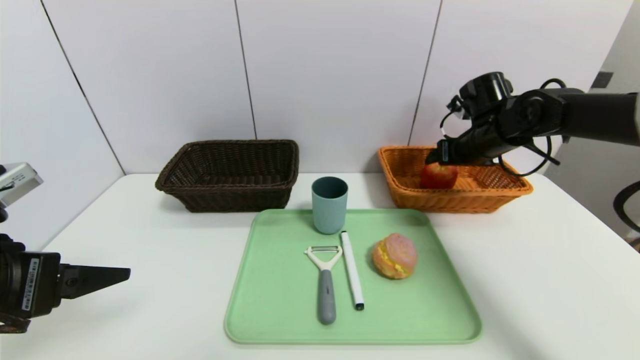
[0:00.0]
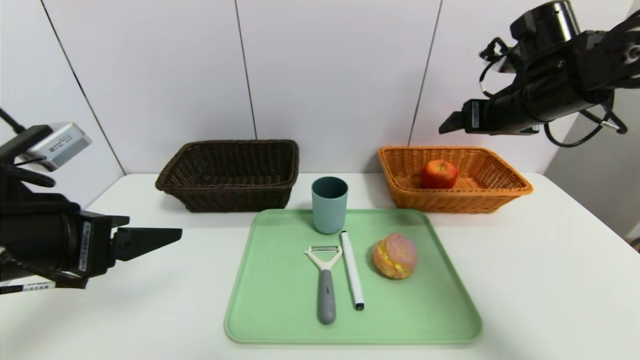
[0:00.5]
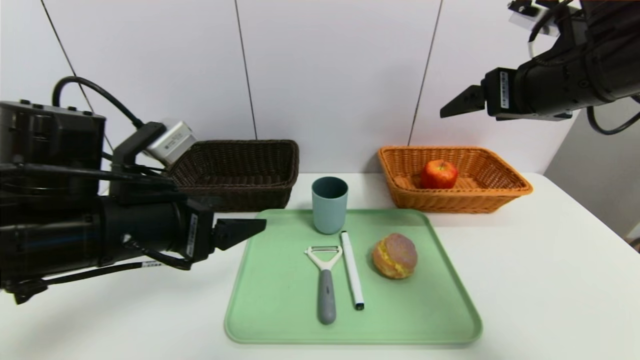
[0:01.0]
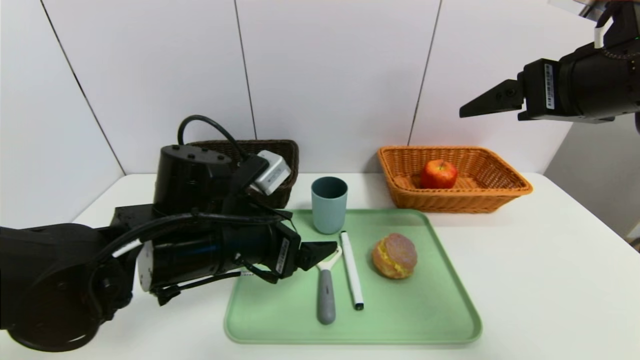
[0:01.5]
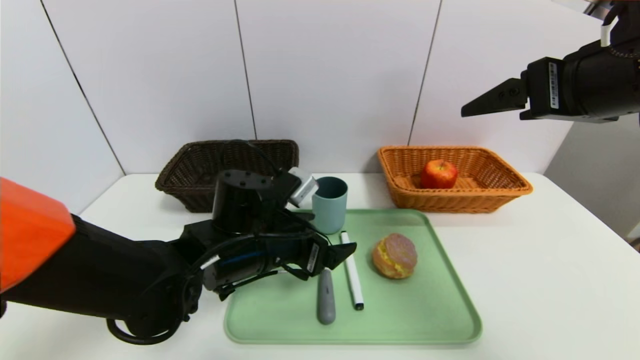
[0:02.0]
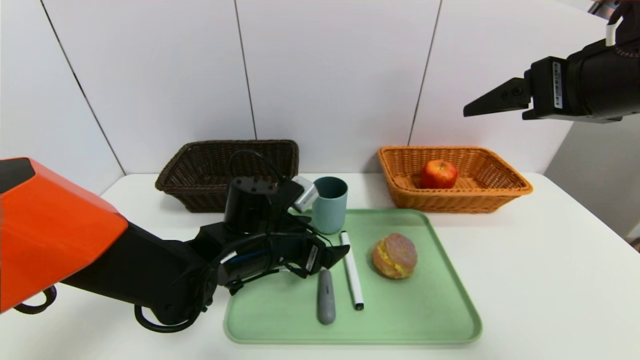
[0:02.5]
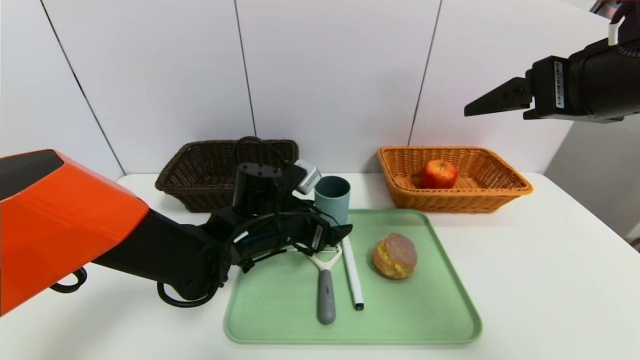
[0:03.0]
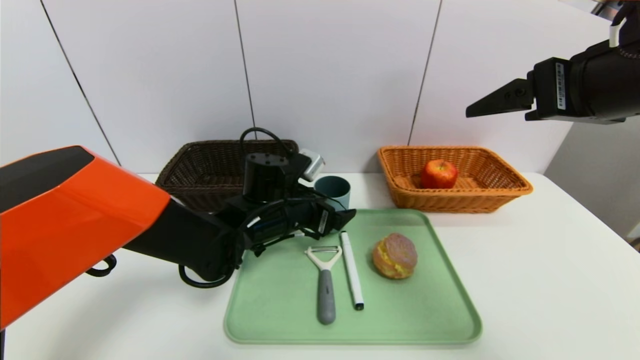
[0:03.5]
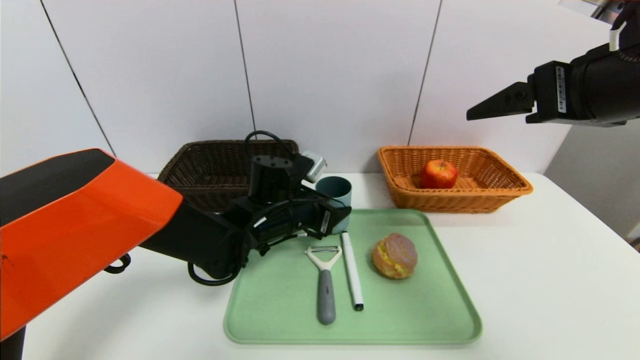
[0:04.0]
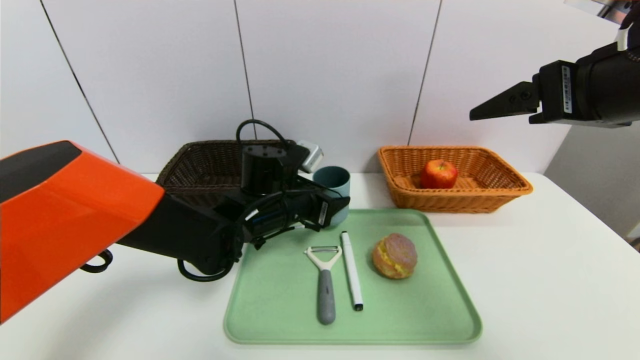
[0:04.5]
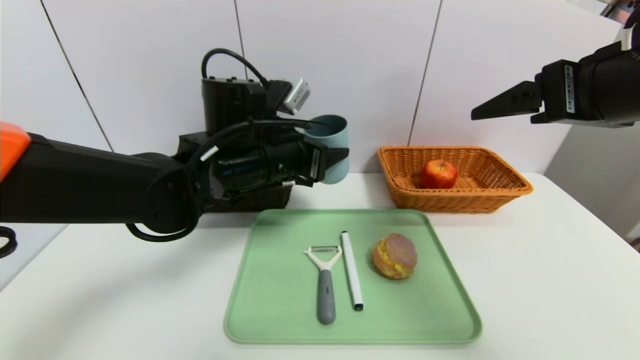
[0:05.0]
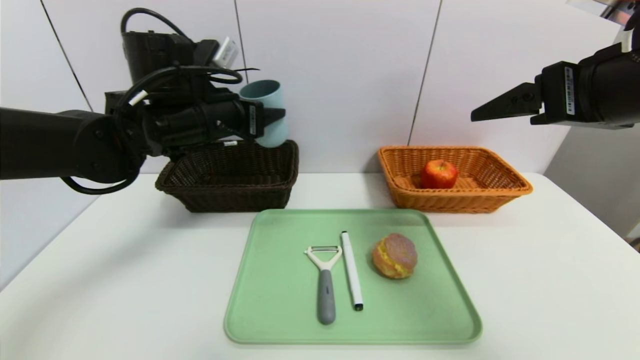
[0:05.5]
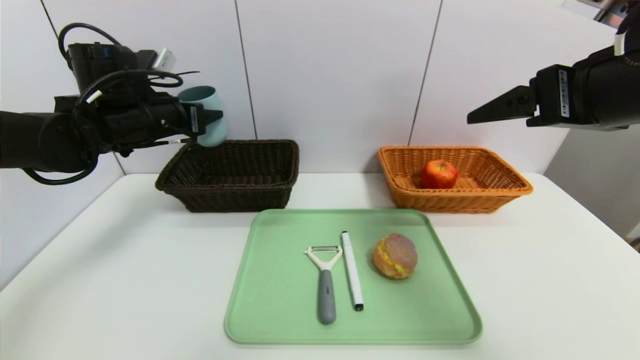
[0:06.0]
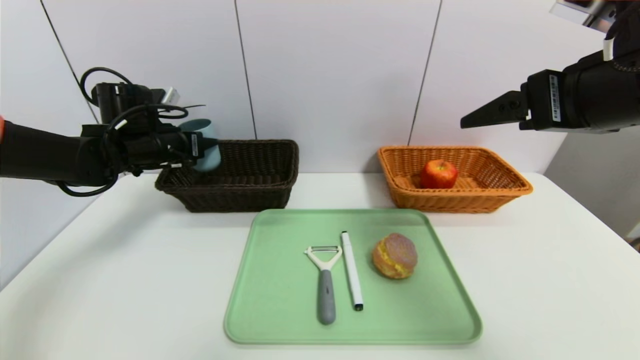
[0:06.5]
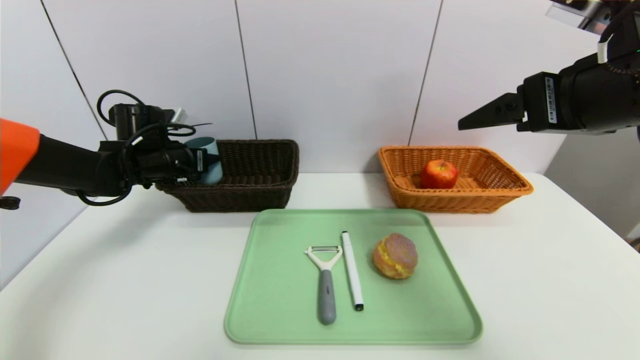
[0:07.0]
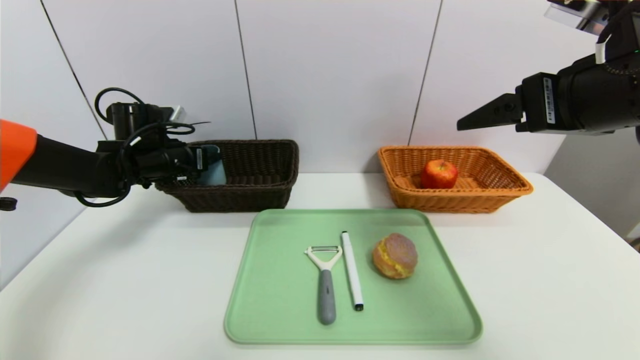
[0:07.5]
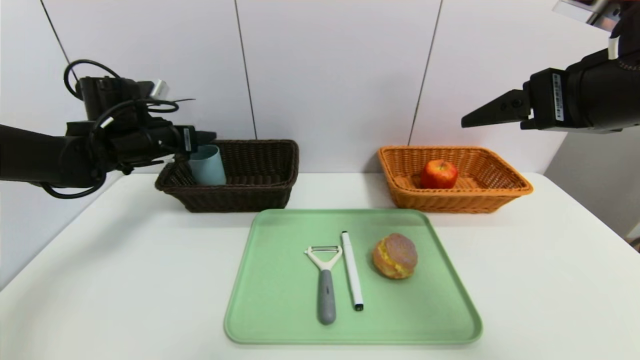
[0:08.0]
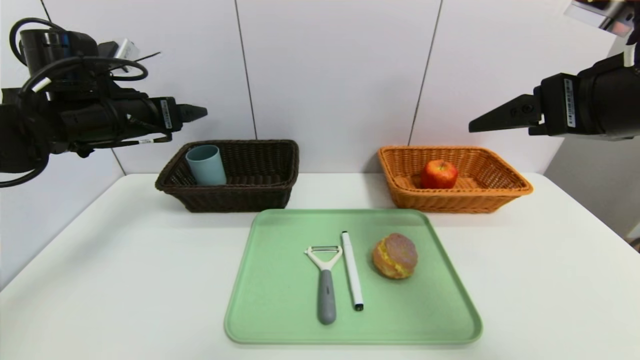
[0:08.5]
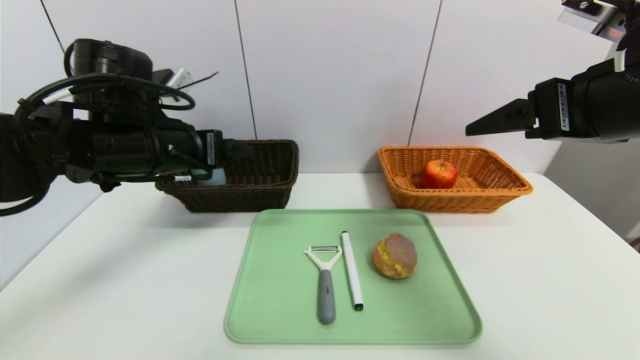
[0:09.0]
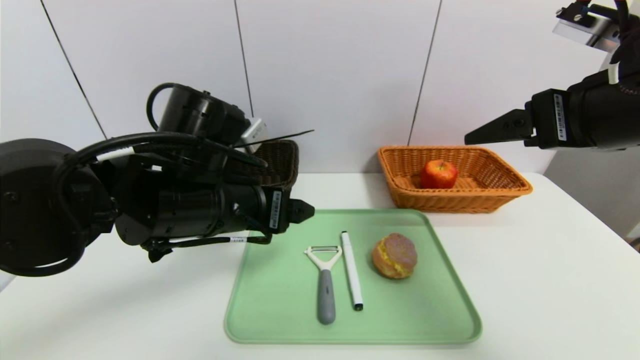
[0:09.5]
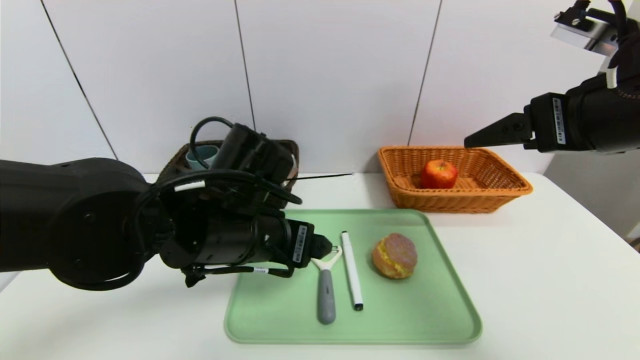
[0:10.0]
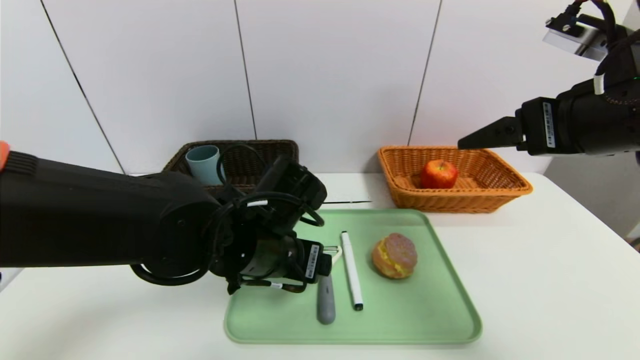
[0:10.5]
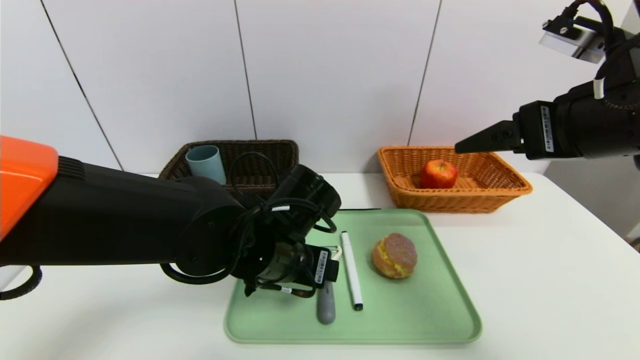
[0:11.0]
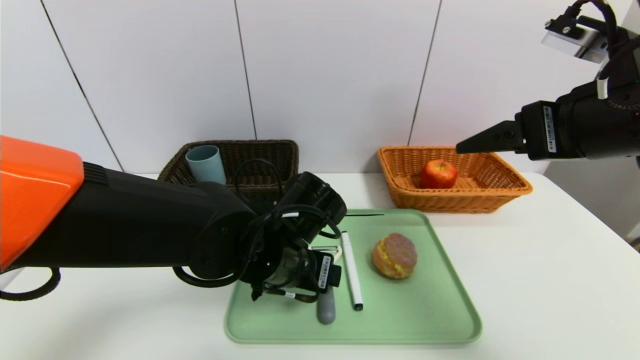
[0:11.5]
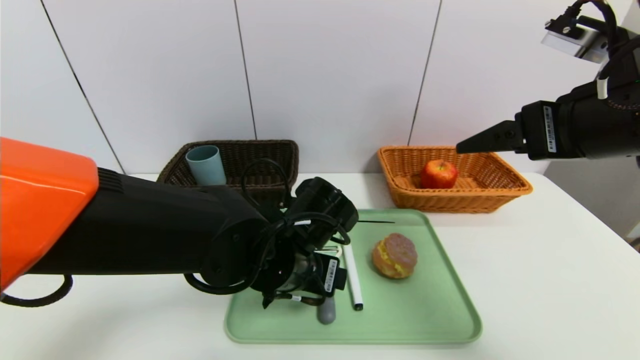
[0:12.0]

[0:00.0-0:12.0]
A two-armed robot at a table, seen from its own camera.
Task of the whole recording: place the food in the right basket with the right gripper, and place the non food items in the left basket with the left gripper.
Step, 0:00.5 to 0:07.5: Grasp the blue cup and put it in the left basket.
0:00.0 to 0:02.0: The left gripper goes about 25 cm to the right, forward and downward. Meanwhile the right gripper shifts roughly 25 cm backward and upward.
0:02.0 to 0:04.0: The left gripper is displaced forward by approximately 10 cm, and closes.
0:04.0 to 0:06.0: The left gripper goes some 25 cm to the left and upward.
0:06.0 to 0:08.0: The left gripper goes downward and returns, about 10 cm each way.
0:08.0 to 0:10.0: The left gripper moves to the right and backward, some 25 cm.
0:10.0 to 0:12.0: The left gripper moves downward, about 5 cm.

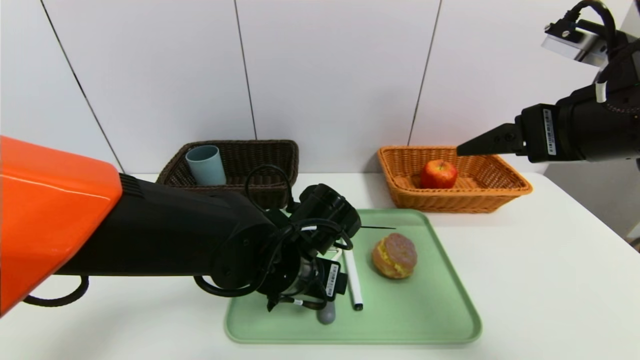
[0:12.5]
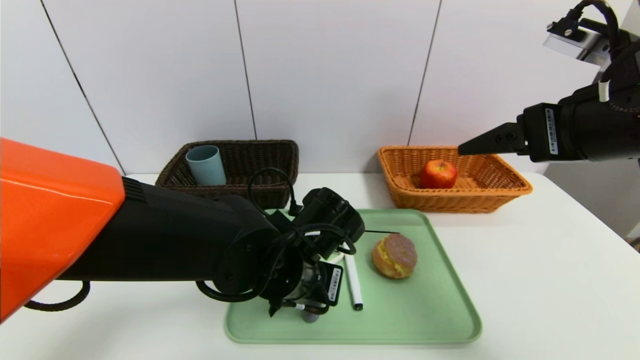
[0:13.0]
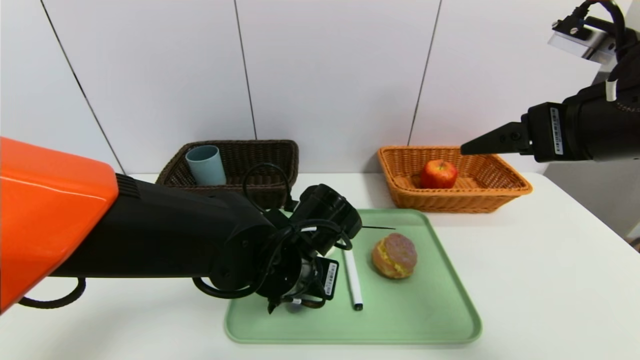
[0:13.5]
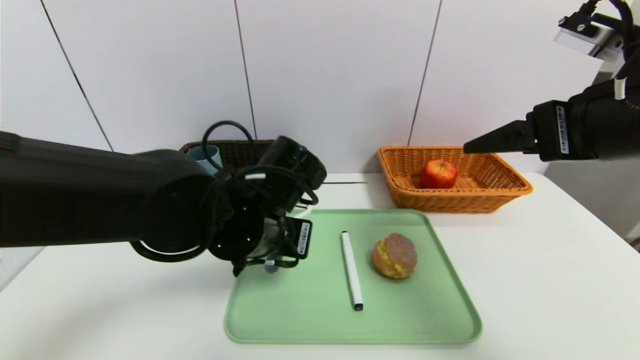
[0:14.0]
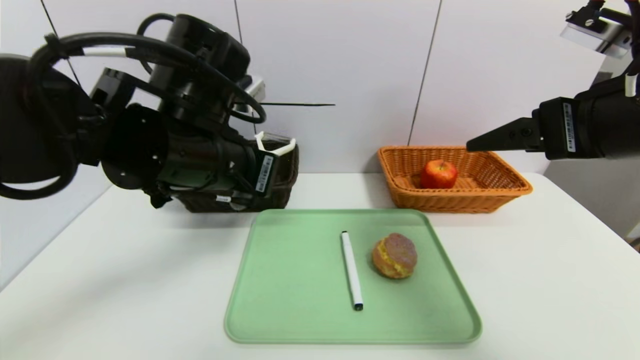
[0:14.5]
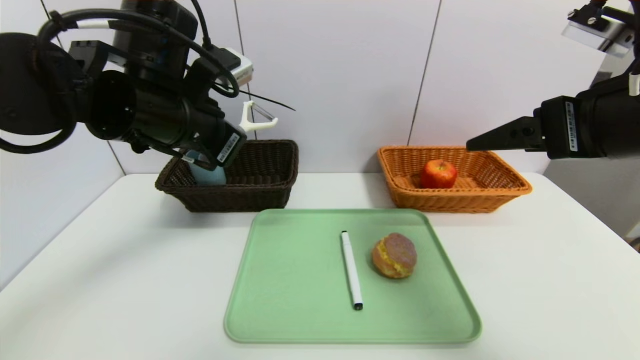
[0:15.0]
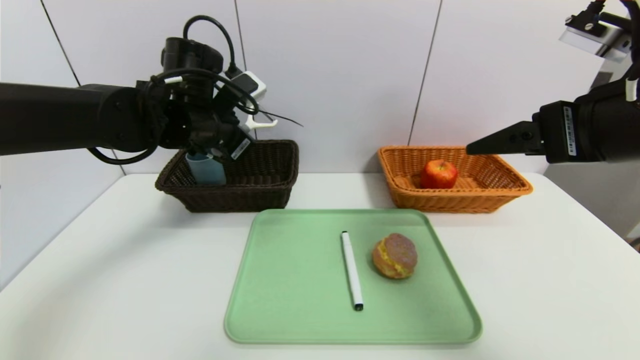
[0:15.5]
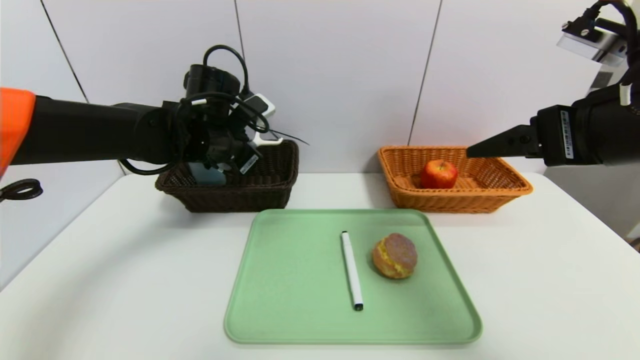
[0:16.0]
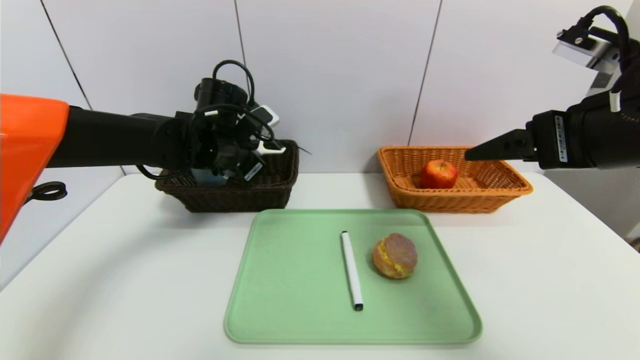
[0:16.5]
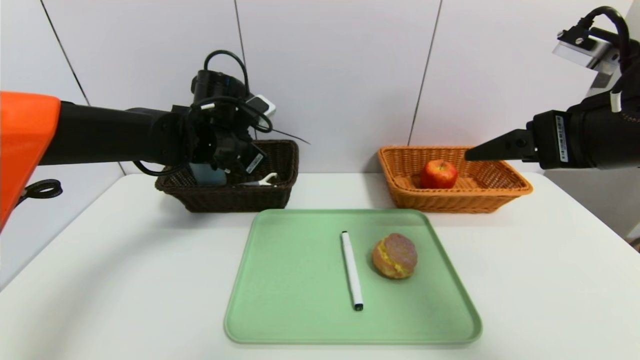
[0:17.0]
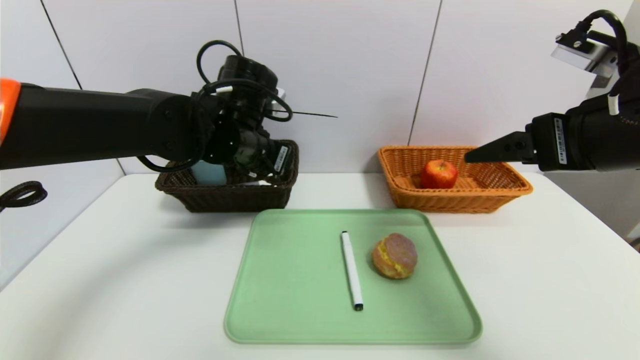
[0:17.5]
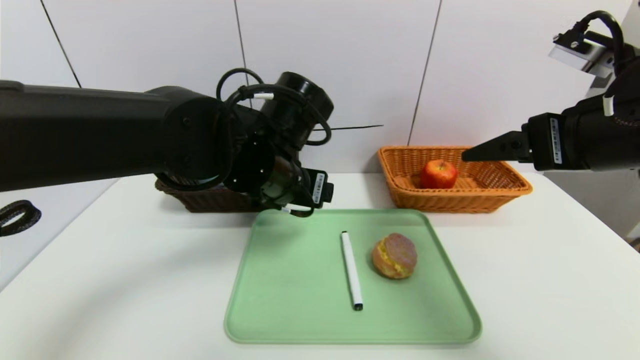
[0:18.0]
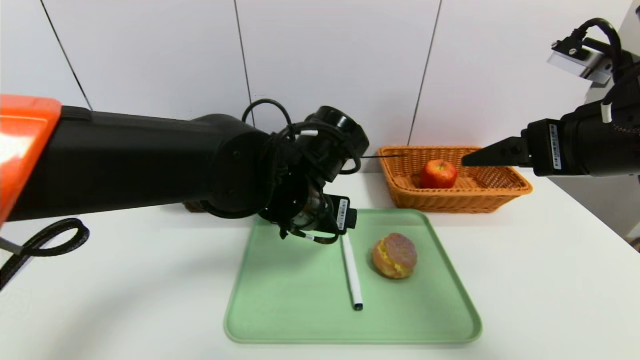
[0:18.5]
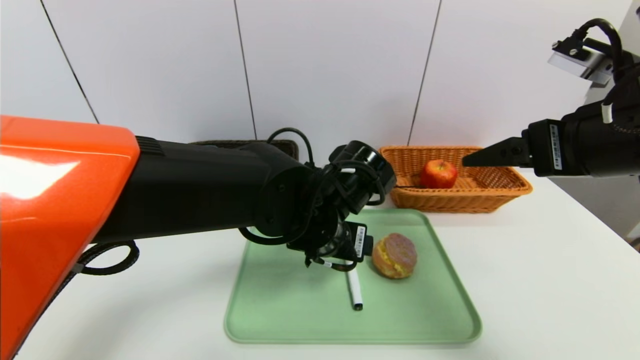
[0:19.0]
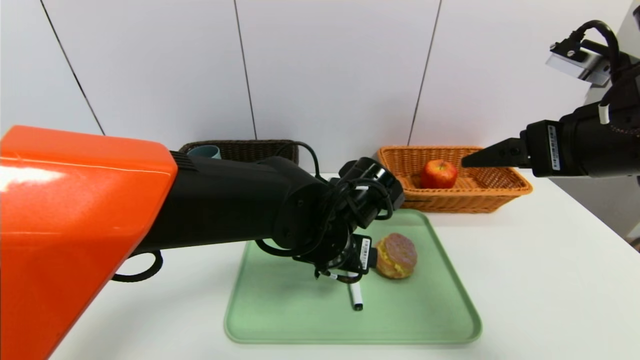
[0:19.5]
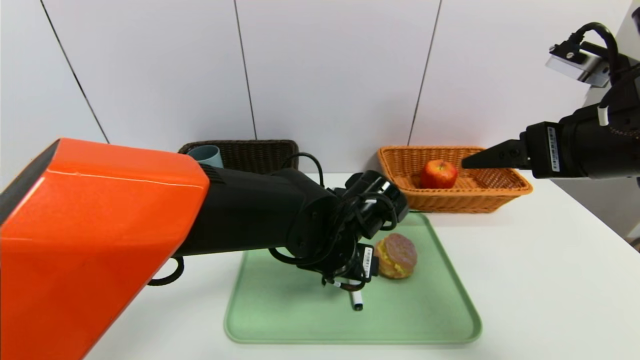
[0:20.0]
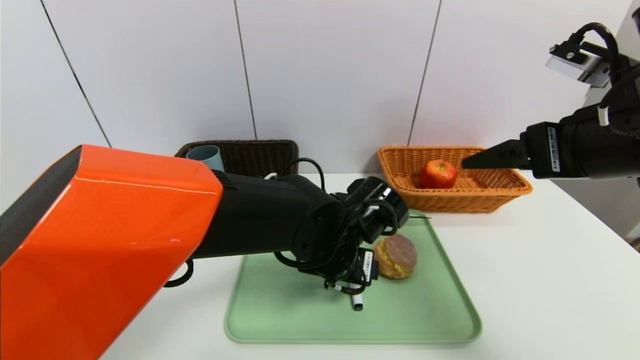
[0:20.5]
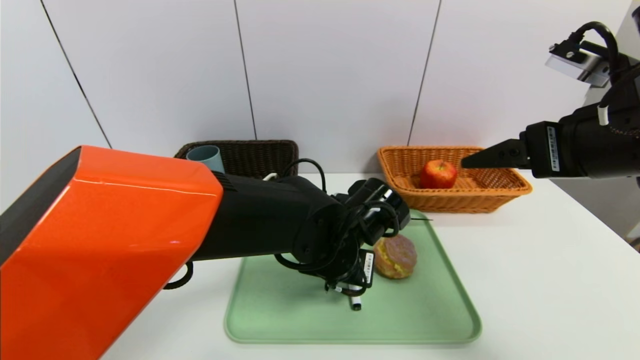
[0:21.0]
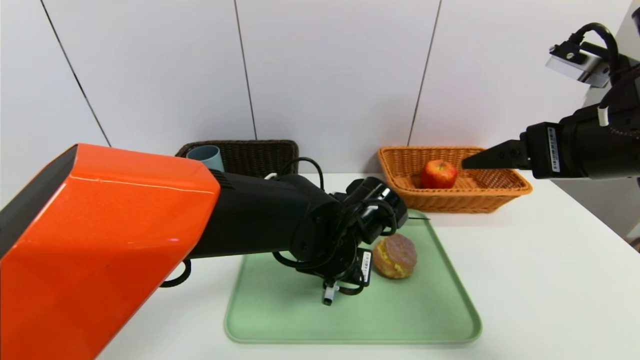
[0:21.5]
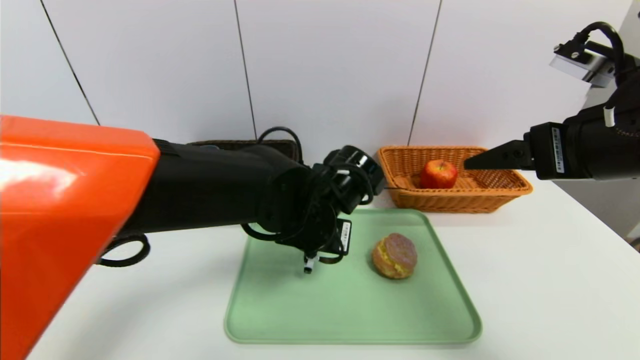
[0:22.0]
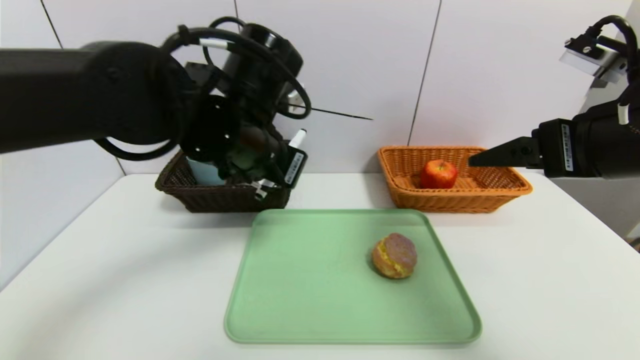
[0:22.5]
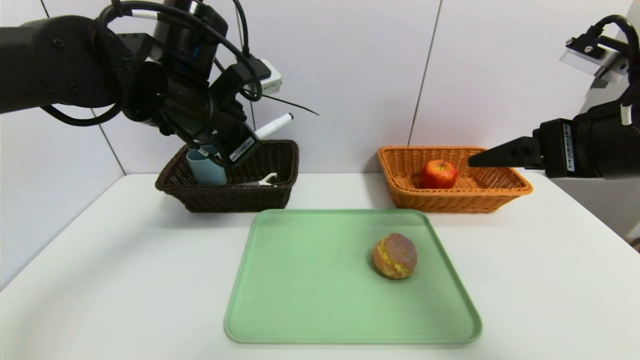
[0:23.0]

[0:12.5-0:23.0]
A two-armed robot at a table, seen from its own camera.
Task of the whole recording: place the food in the right basket with the right gripper, and place the non food items in the left basket with the left gripper.
Step, 0:12.5 to 0:16.5: Grasp the peeler and put it in the left basket.
0:12.5 to 0:14.5: The left gripper is displaced upward and to the left by some 15 cm, and closes its fingers.
0:14.5 to 0:16.5: The left gripper is displaced forward and downward by about 15 cm.
0:16.5 to 0:19.0: The left gripper heads to the right and backward, covering approximately 20 cm, and opens up.
0:19.0 to 0:21.0: The left gripper closes.
0:21.0 to 0:23.0: The left gripper goes some 25 cm to the left and upward, and closes its fingers.
